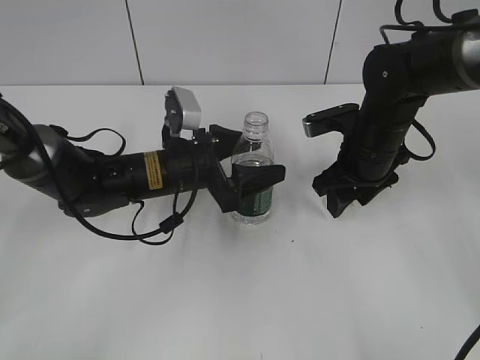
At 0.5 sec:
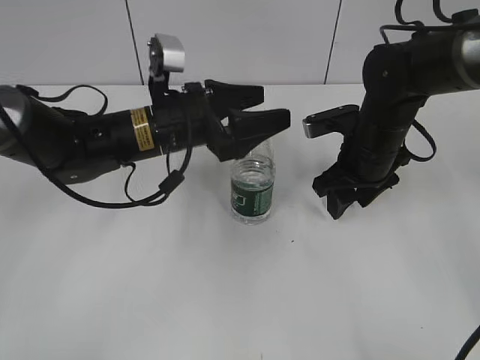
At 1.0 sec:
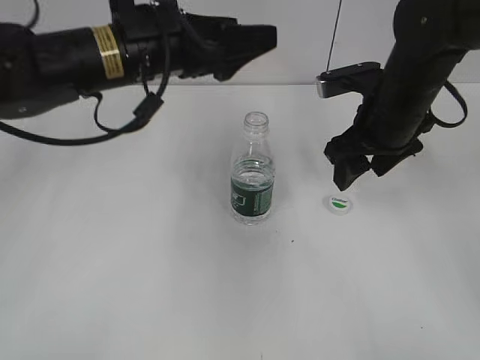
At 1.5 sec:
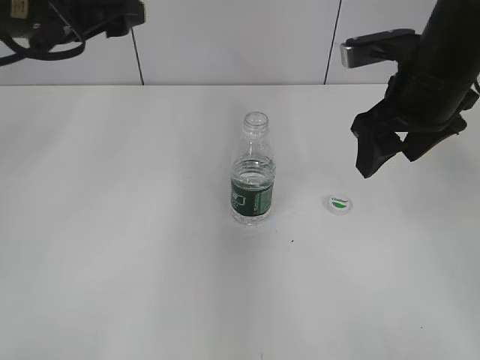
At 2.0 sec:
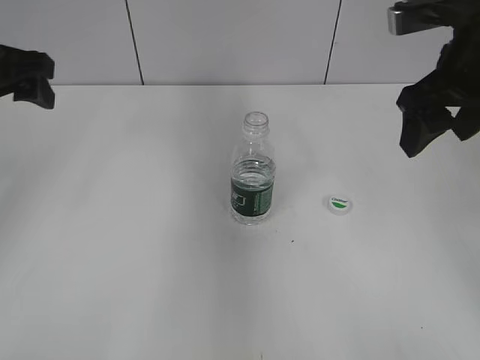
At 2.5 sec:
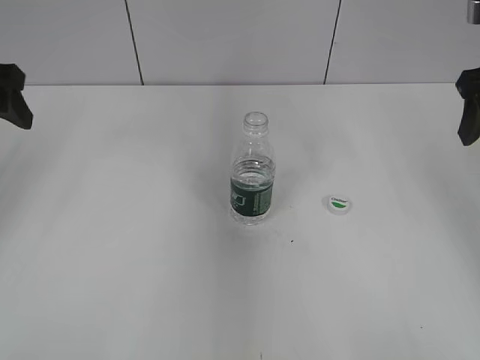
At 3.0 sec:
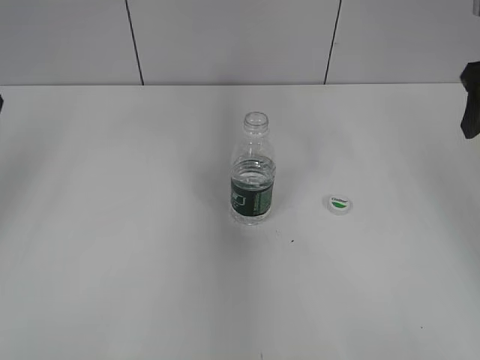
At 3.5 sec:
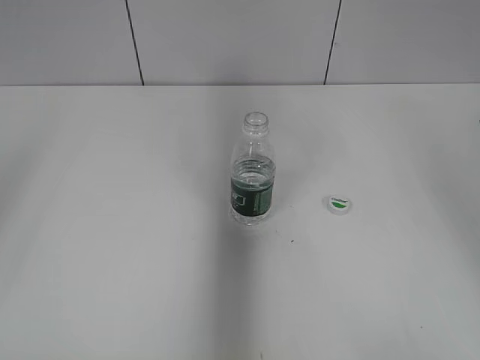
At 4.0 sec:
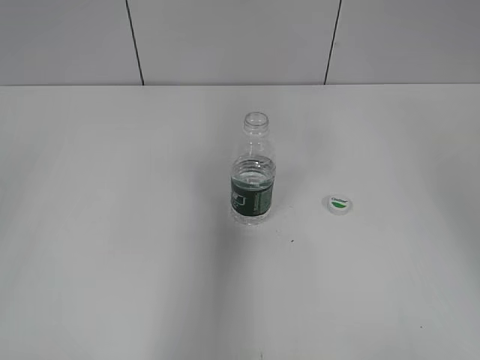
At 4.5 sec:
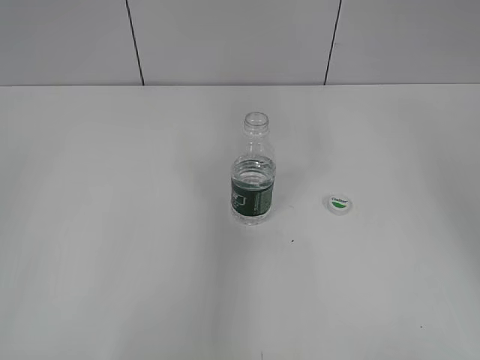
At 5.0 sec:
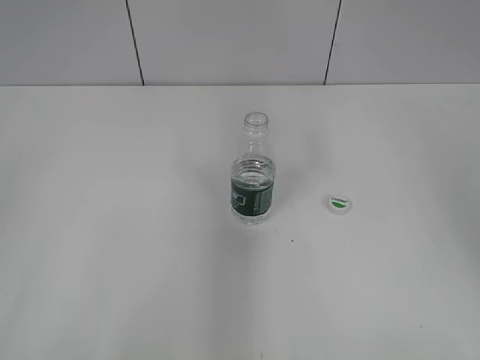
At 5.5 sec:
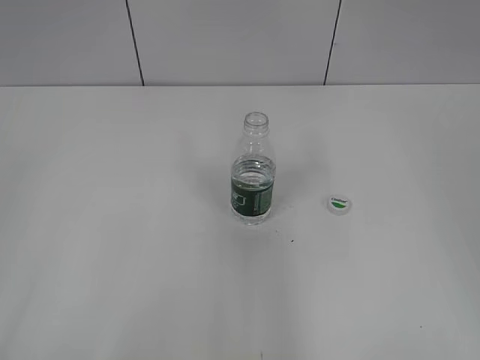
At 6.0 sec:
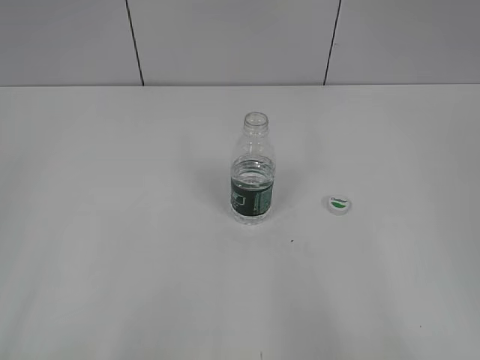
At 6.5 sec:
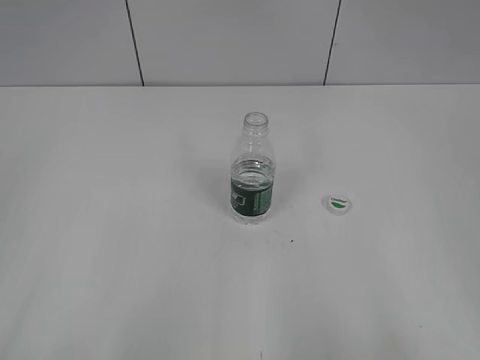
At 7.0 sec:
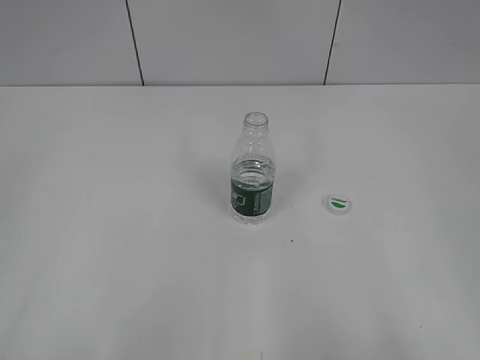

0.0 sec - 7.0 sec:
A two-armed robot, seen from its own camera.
0.0 sec - 2.0 sec: The right gripper travels upward by about 15 cm, and opens its fingers. Meanwhile the left gripper goes about 25 cm upward and to the left.
2.0 sec - 3.5 sec: The right gripper travels to the right by roughly 10 cm, while the left gripper heads backward, upward and to the left, covering roughly 15 cm.
3.5 sec - 5.0 sec: The right gripper is displaced backward by approximately 5 cm. Meanwhile the left gripper moves backward and downward, roughly 25 cm.
